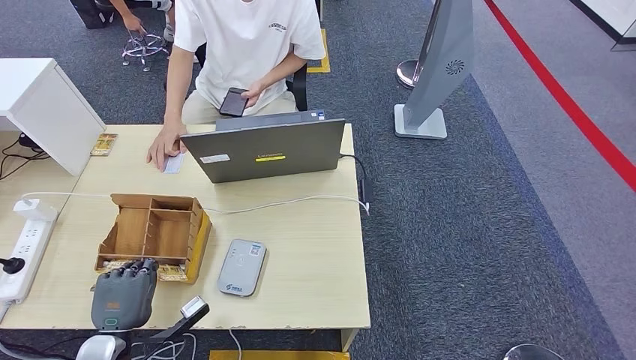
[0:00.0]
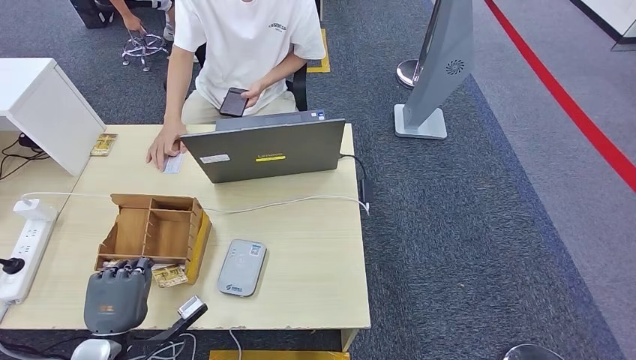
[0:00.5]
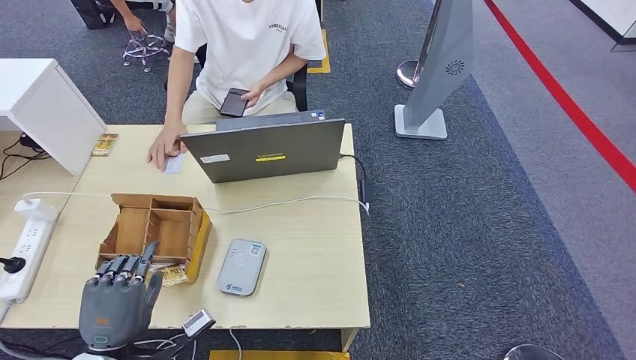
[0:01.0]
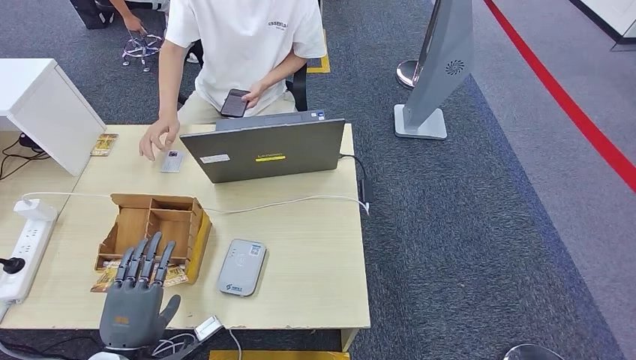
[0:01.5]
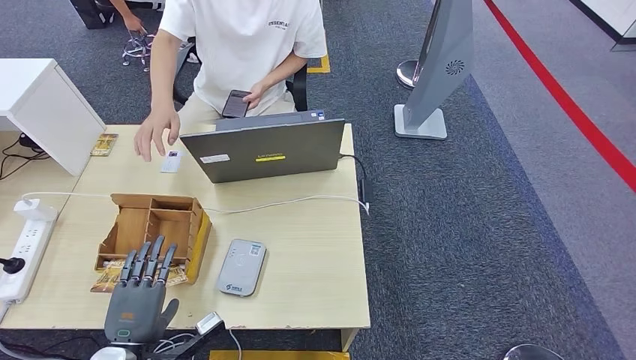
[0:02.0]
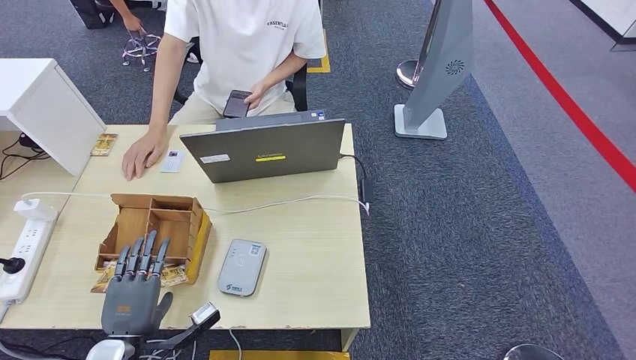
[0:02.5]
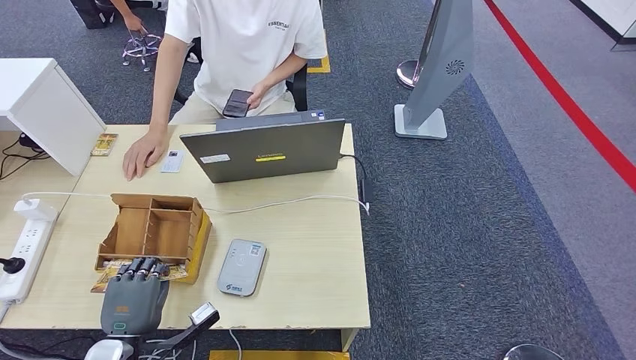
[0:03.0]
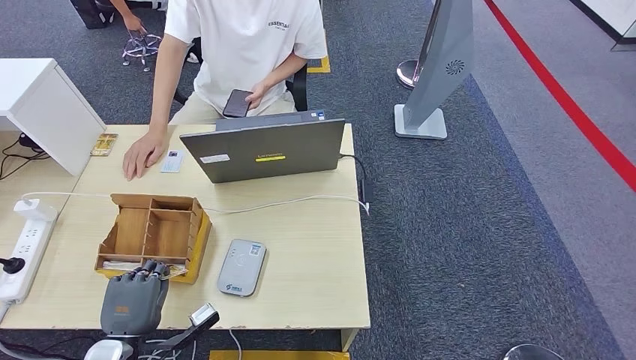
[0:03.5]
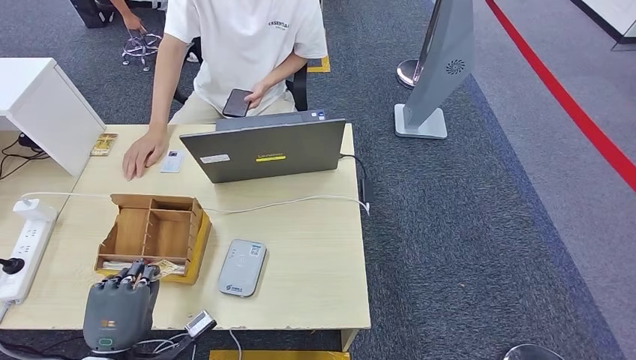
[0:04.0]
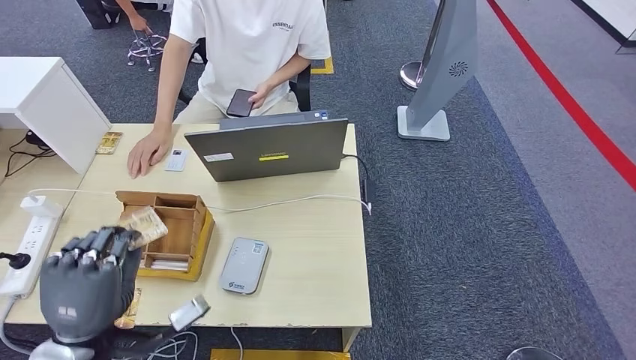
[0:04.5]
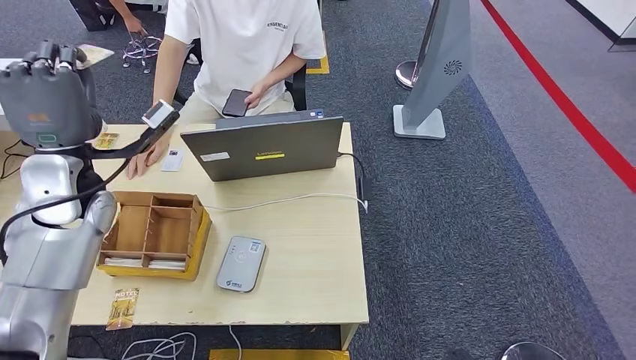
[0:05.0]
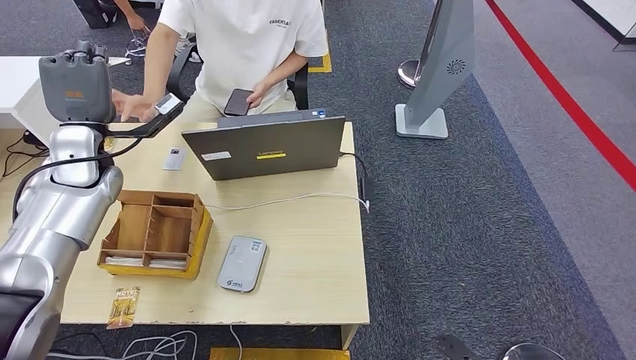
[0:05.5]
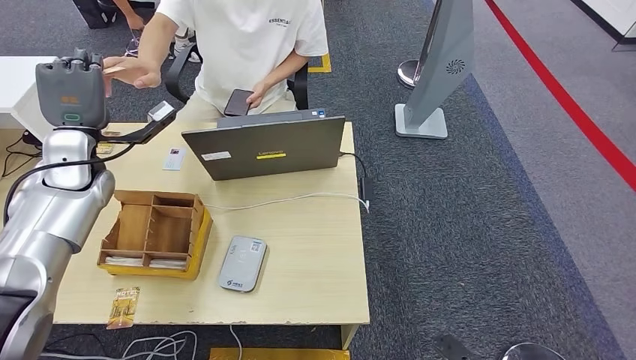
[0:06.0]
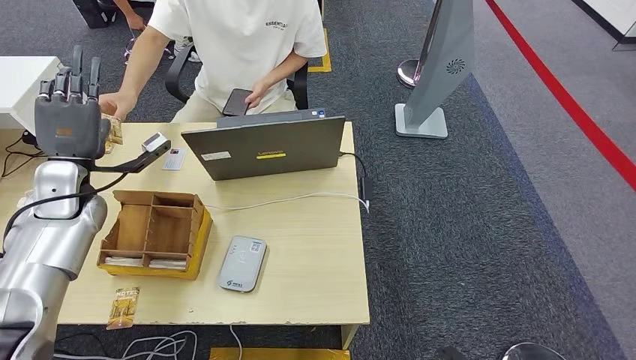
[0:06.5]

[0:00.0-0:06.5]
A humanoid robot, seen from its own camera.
Step, 0:00.0 to 0:03.0: Pick up the room key from the key card box.
Step, 0:03.5 to 0:06.5: Hand the room key to the person.
0:02.0 to 0:04.5: The left hand goes roughly 10 cm upward.
